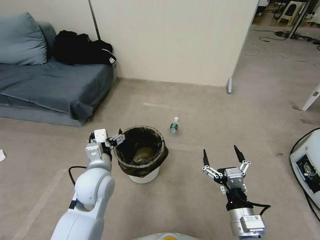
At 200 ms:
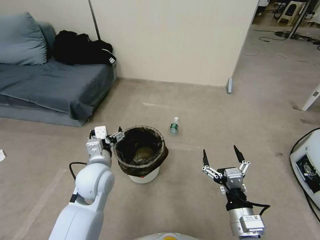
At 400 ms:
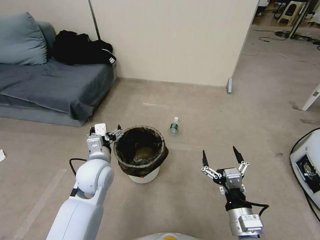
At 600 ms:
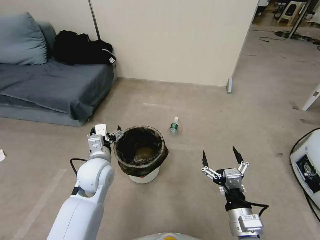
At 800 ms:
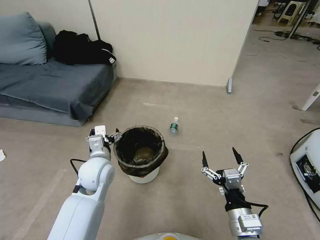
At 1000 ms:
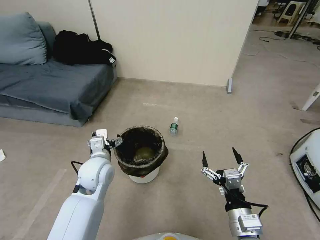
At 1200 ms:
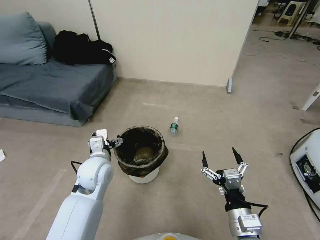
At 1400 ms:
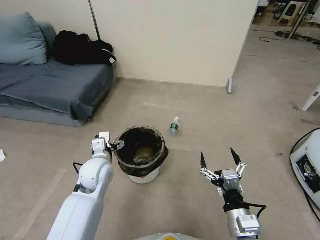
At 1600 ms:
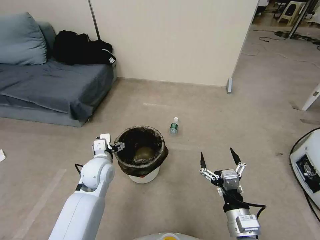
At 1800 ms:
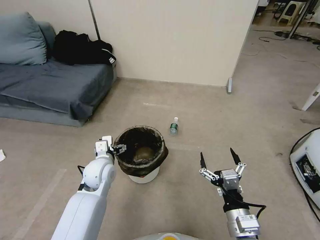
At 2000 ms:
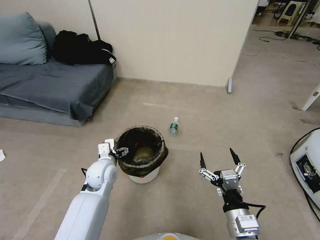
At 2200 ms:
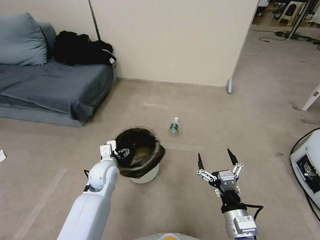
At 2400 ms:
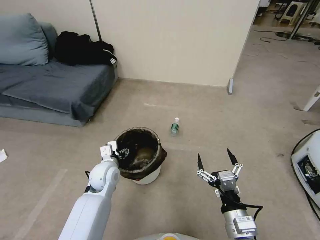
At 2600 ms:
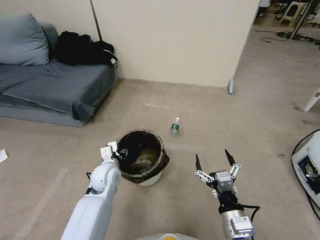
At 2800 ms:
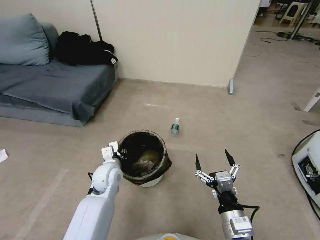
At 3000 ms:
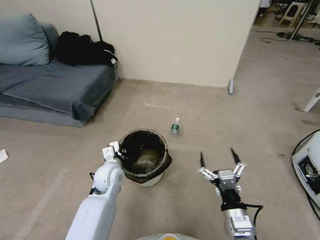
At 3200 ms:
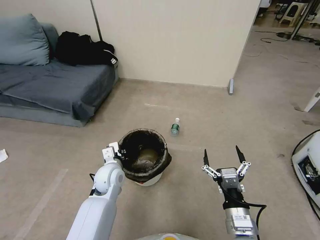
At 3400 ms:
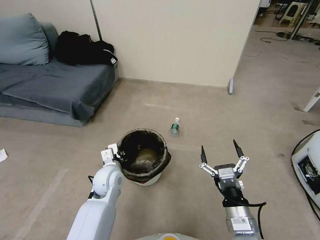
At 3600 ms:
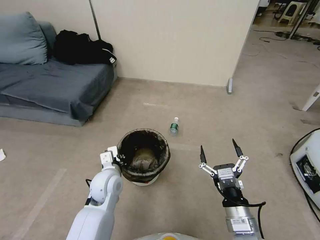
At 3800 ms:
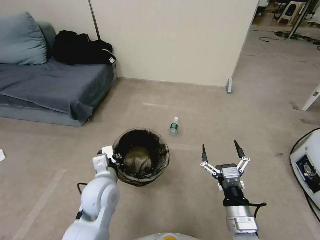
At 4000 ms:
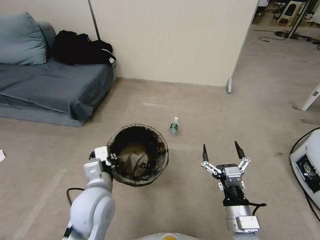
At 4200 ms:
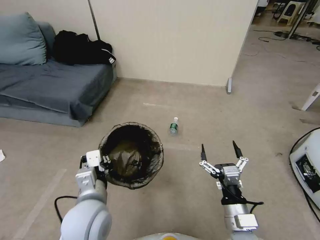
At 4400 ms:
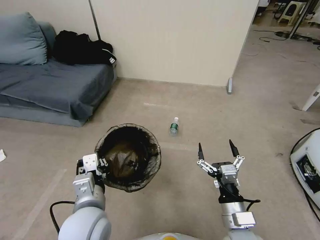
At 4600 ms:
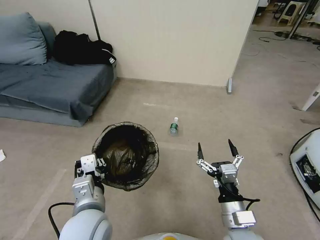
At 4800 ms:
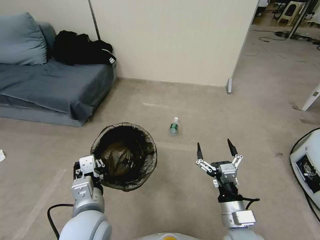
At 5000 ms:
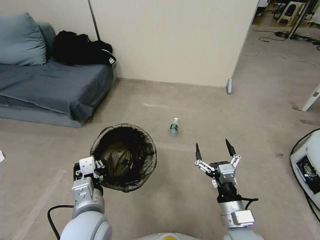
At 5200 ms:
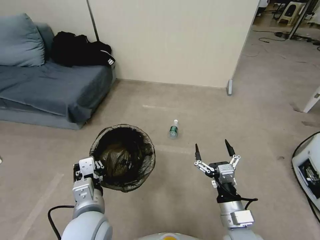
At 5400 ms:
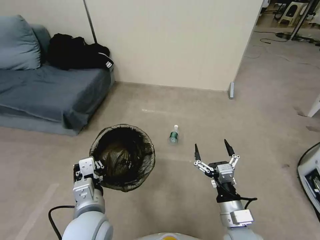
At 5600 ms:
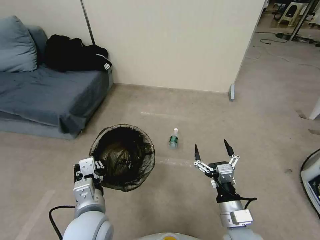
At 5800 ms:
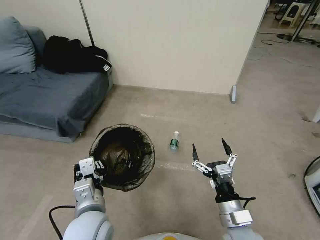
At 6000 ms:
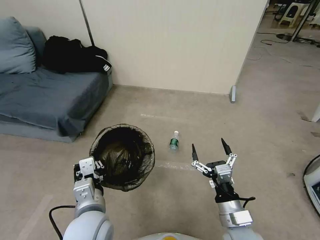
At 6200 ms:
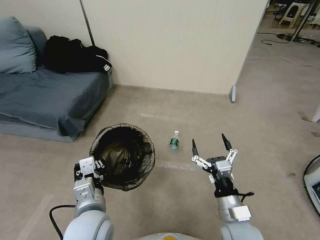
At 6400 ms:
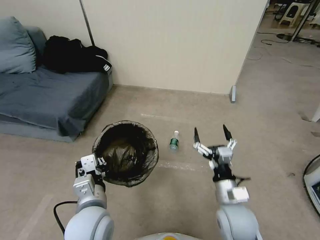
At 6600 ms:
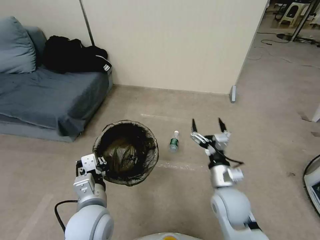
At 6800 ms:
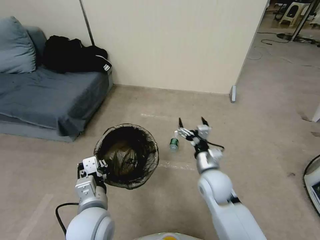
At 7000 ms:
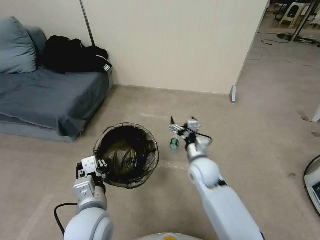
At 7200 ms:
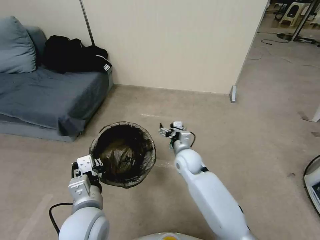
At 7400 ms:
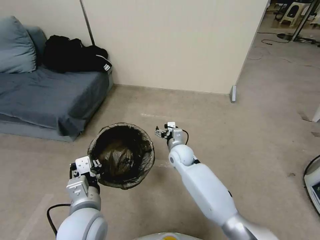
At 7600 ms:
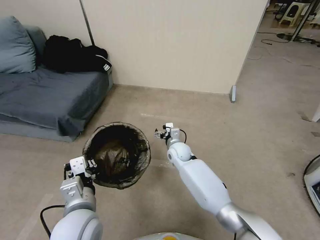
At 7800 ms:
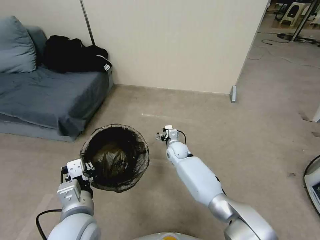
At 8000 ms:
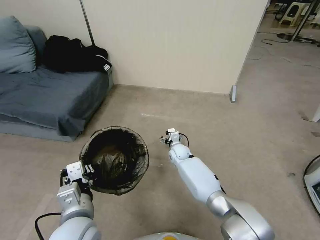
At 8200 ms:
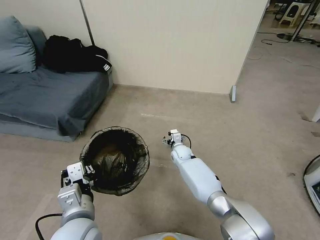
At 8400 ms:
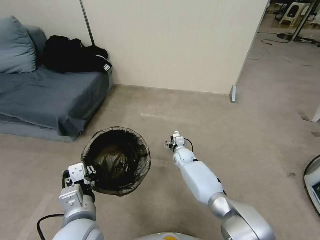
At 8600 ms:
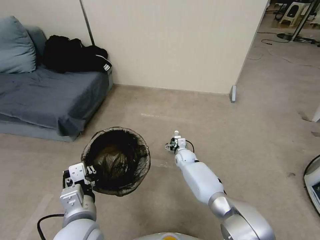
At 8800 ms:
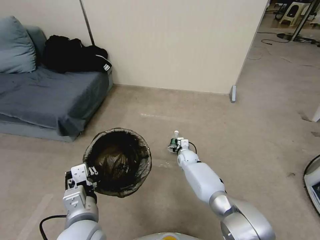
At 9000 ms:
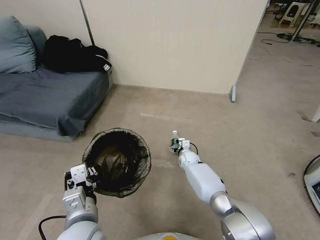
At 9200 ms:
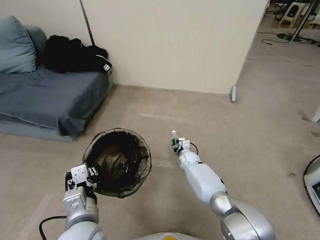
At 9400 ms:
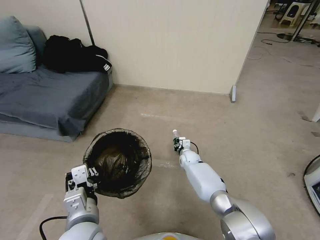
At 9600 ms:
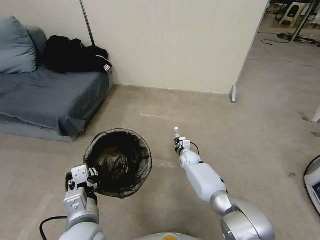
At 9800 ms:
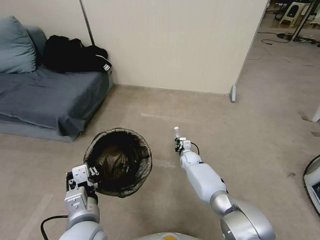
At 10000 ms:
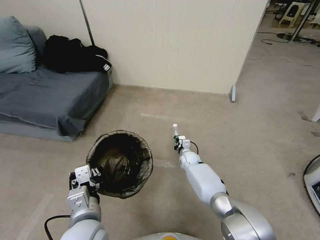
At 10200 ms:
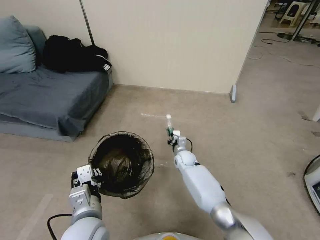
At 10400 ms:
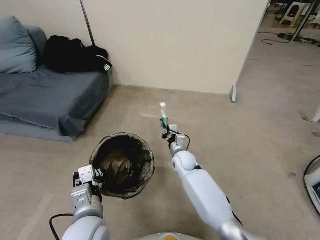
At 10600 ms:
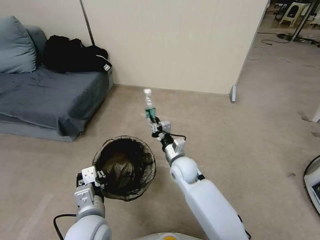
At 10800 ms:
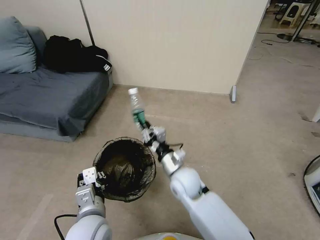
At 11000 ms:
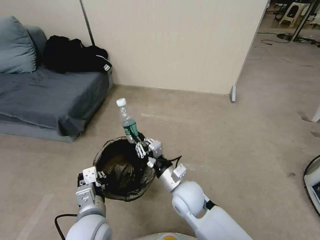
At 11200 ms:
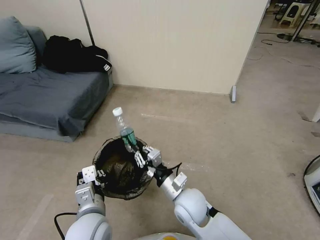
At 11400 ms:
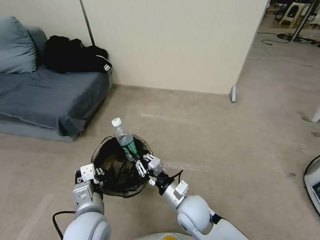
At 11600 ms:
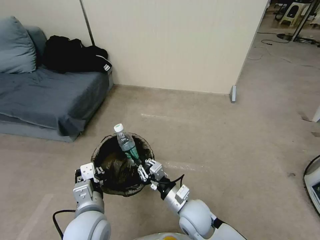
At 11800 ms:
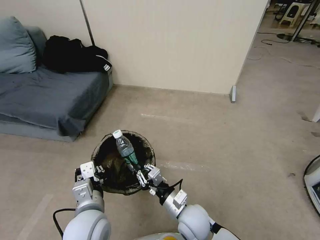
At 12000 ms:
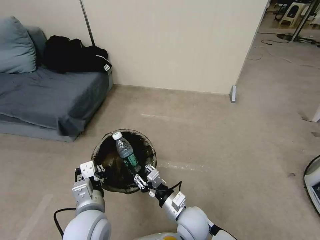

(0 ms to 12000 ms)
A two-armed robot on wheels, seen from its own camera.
Task of the whole recording: Pick up the trash bin, then pick up the garbage from the floor and place it into the trash bin.
0 ms - 1600 ms: The left gripper moves forward, approximately 5 cm.
1600 ms - 3000 ms: The left gripper moves about 5 cm, and closes.
3000 ms - 4400 ms: The left gripper moves backward and upward, about 20 cm.
6000 ms - 7600 ms: The right gripper moves forward and to the left, roughly 35 cm.
7600 ms - 9000 ms: The right gripper heads downward and to the right, covering some 15 cm.
9000 ms - 10400 ms: The right gripper is displaced upward and backward by some 10 cm, and closes up.
10400 ms - 12000 ms: The right gripper goes roughly 20 cm backward.

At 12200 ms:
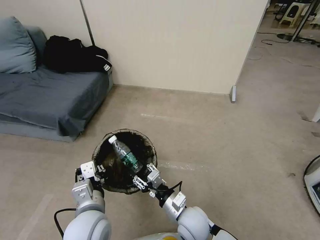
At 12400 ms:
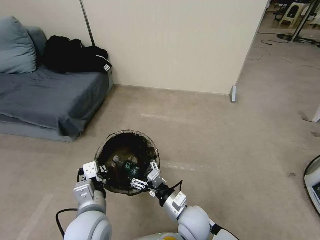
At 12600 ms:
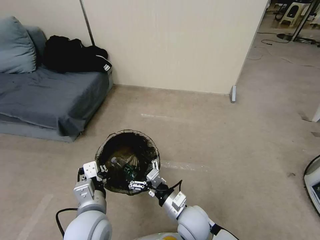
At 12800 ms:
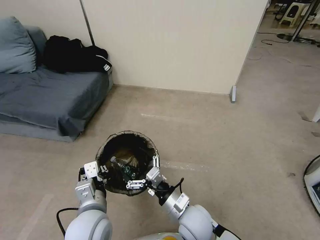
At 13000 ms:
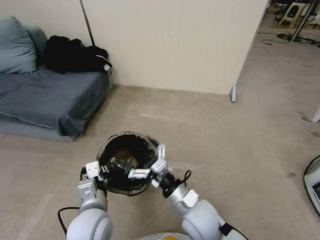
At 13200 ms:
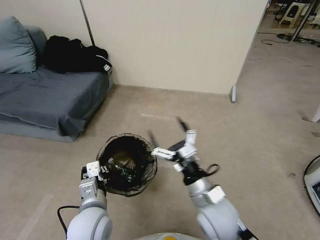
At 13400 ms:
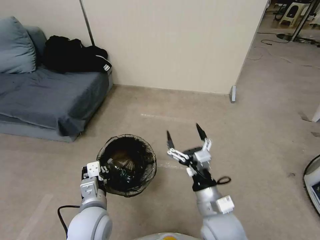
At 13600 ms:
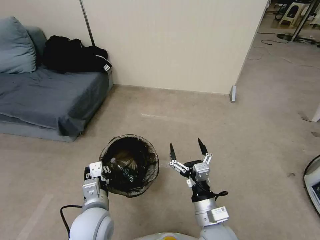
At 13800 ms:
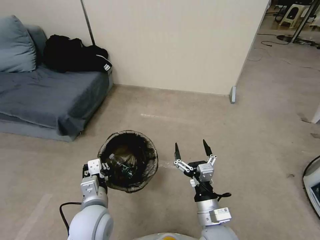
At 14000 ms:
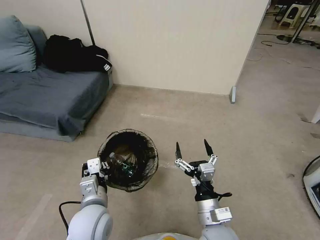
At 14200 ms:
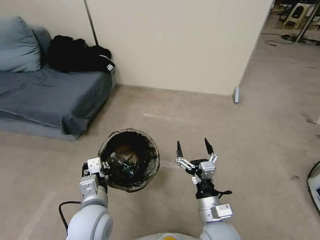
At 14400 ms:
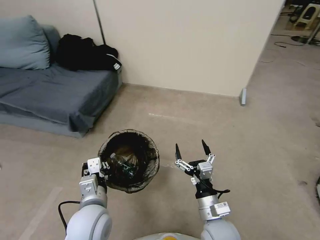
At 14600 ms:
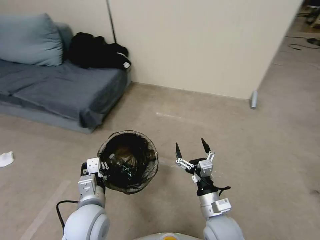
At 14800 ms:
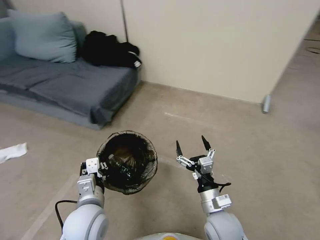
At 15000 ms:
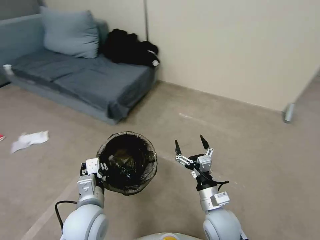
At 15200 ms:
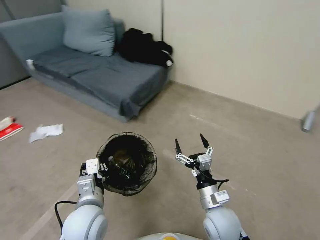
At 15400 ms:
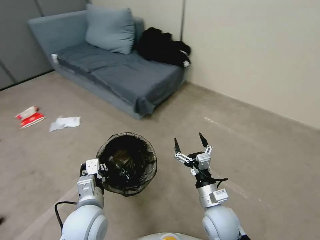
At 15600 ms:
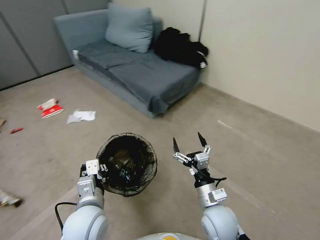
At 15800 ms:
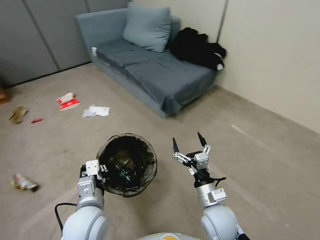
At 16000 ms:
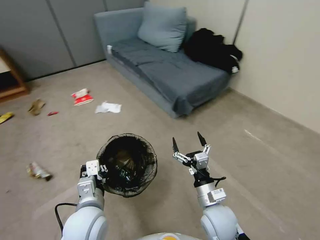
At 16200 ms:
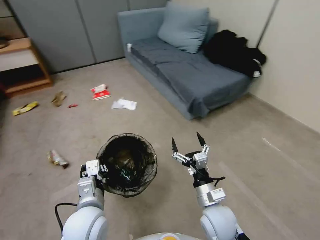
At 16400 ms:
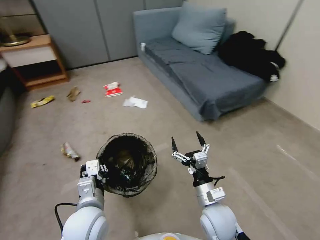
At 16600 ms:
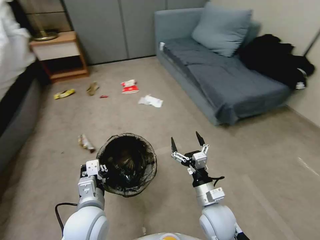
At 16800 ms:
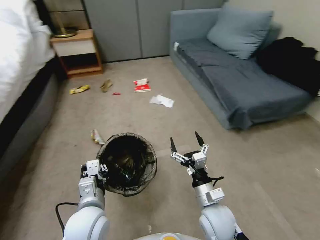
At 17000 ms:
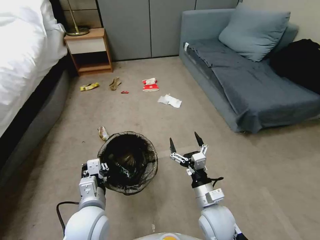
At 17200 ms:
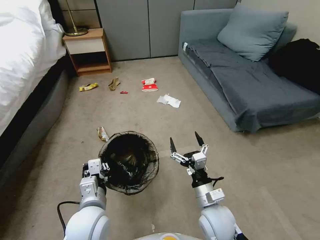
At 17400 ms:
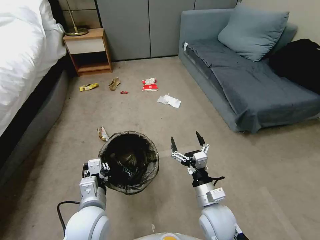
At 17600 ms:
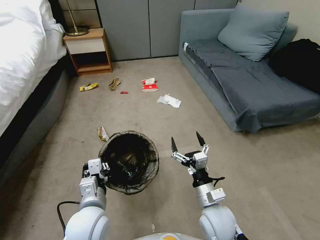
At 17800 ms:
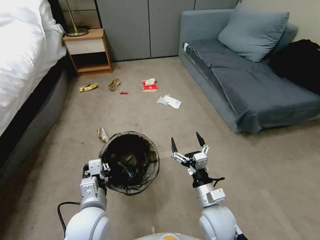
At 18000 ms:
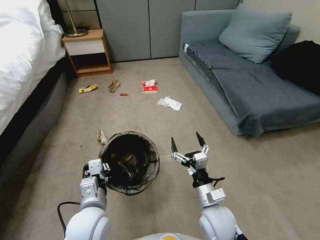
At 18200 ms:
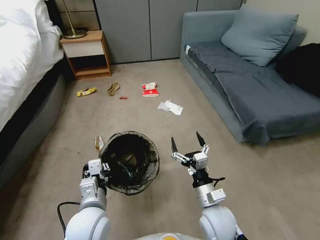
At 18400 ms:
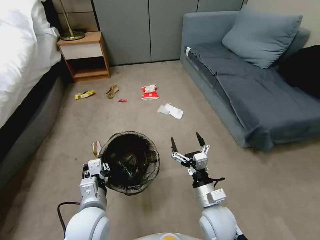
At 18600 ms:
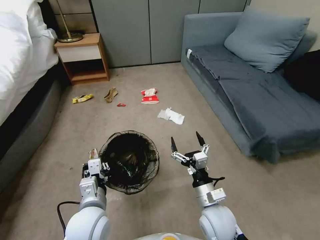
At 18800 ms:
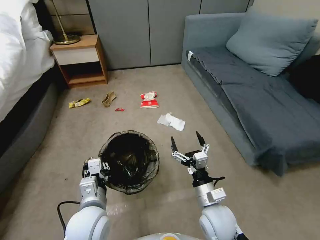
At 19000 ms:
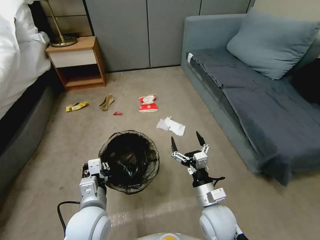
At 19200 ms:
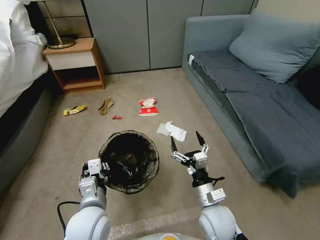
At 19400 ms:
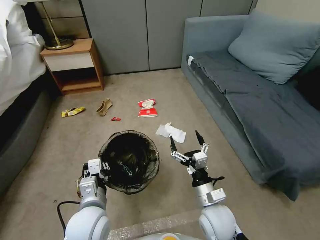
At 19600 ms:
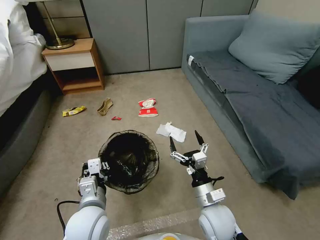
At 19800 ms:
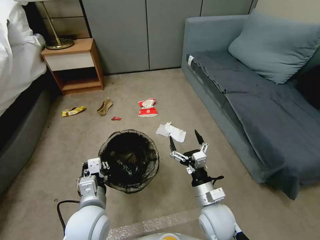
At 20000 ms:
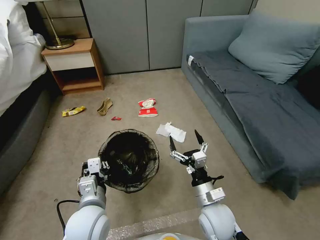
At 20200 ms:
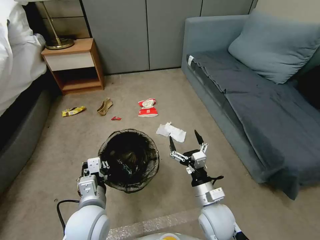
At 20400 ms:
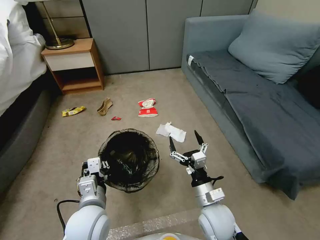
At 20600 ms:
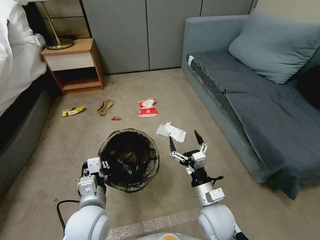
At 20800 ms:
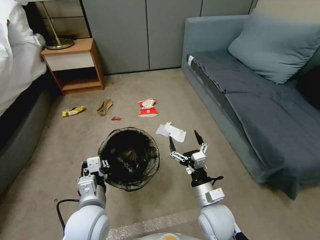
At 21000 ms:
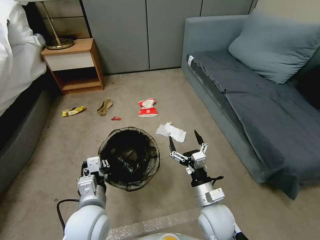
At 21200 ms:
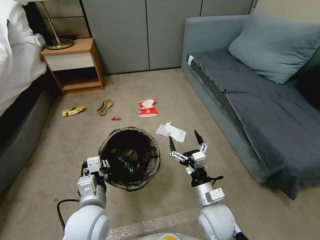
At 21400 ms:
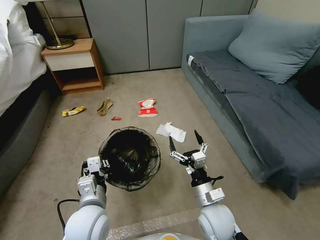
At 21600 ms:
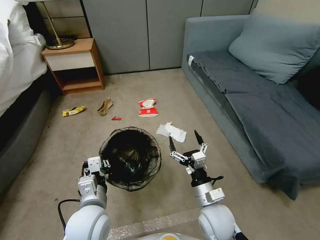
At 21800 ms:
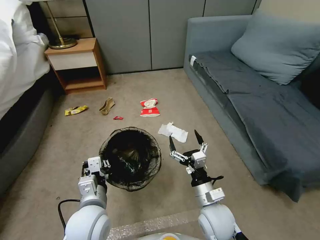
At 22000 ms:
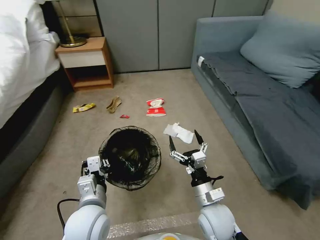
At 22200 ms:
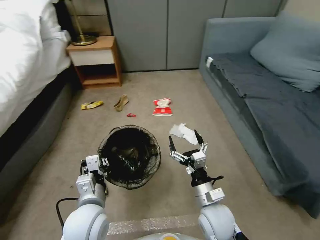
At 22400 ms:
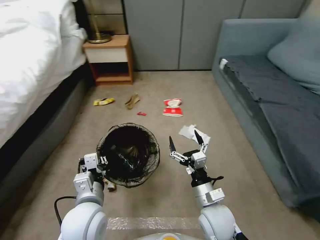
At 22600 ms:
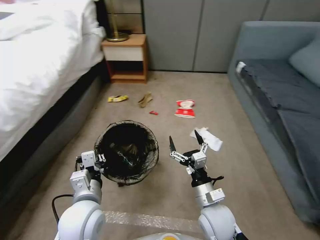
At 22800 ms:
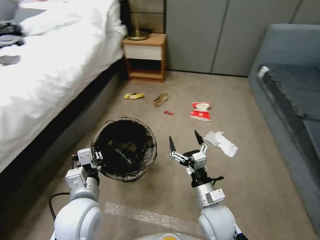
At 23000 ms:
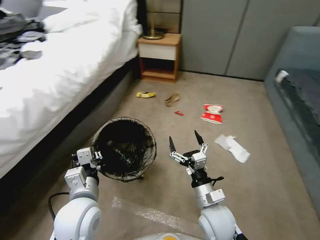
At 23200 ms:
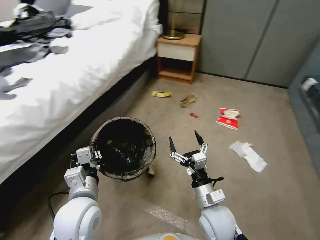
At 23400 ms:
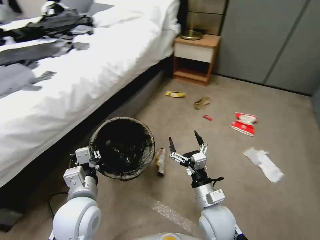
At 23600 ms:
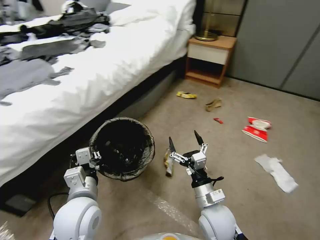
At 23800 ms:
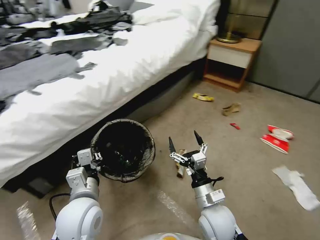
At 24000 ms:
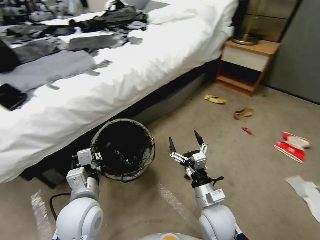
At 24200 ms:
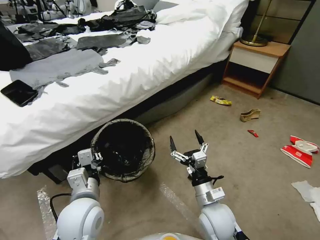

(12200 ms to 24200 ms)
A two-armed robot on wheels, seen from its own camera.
Task of the whole recording: Pick up the trash bin, then pick up the garbage from the floor and place it into the trash bin.
12200 ms - 13800 ms: The right gripper goes roughly 10 cm upward and backward, and opens up.
13800 ms - 15200 ms: The right gripper goes about 5 cm forward.
19800 ms - 21200 ms: The two grippers keep their place.
